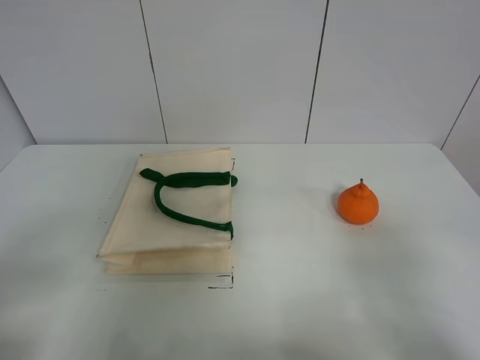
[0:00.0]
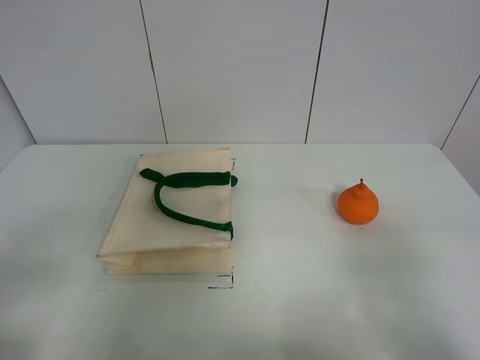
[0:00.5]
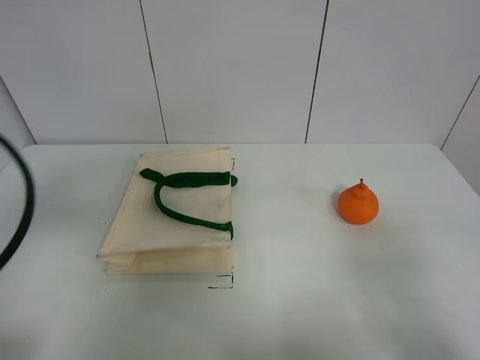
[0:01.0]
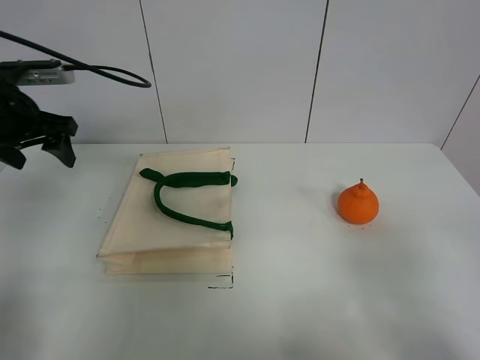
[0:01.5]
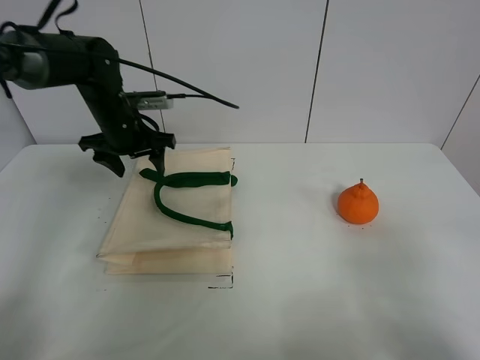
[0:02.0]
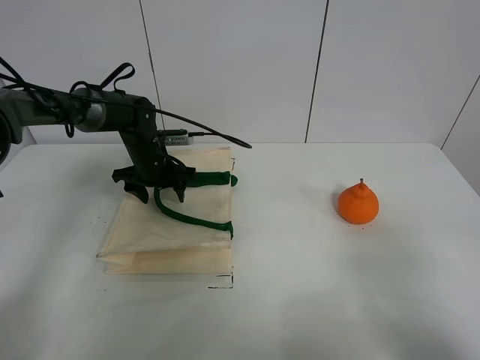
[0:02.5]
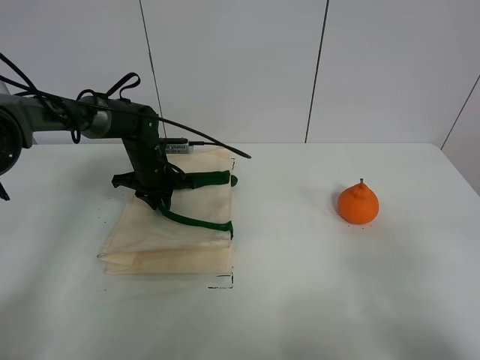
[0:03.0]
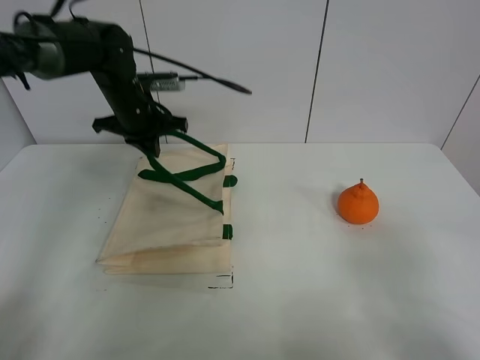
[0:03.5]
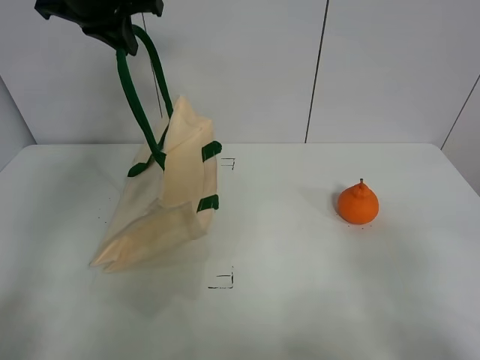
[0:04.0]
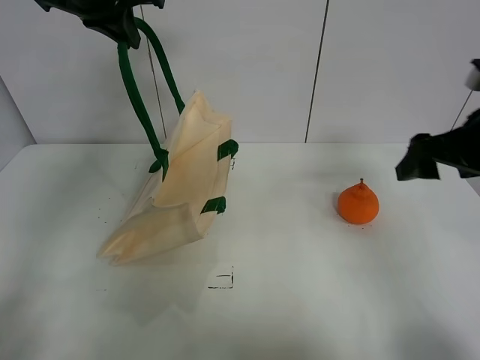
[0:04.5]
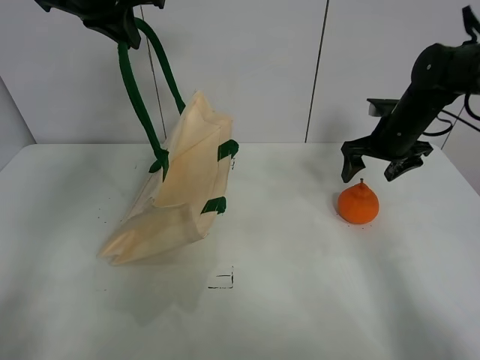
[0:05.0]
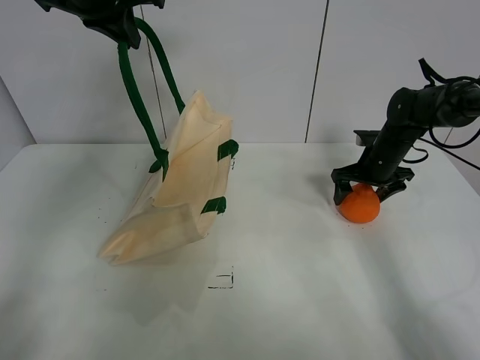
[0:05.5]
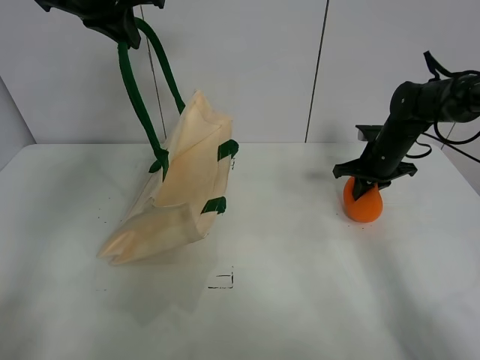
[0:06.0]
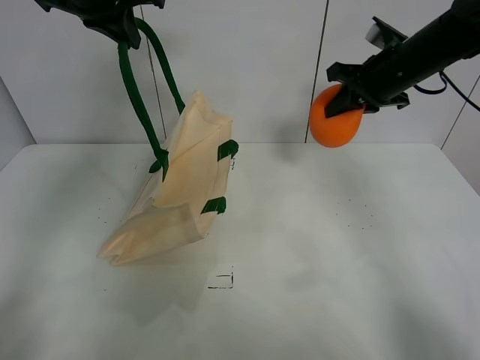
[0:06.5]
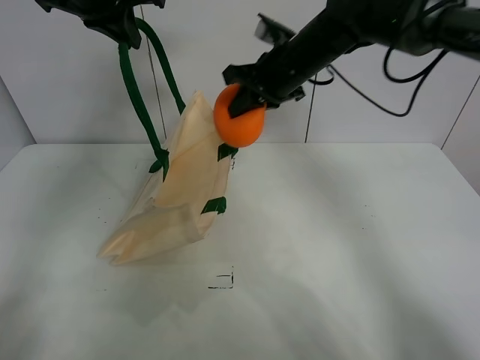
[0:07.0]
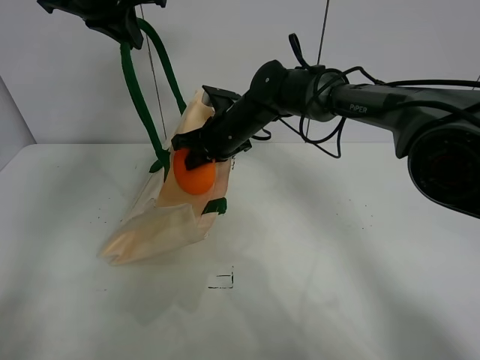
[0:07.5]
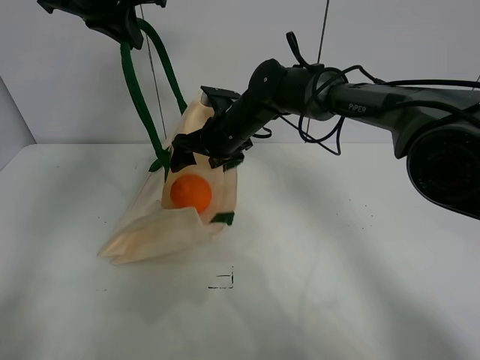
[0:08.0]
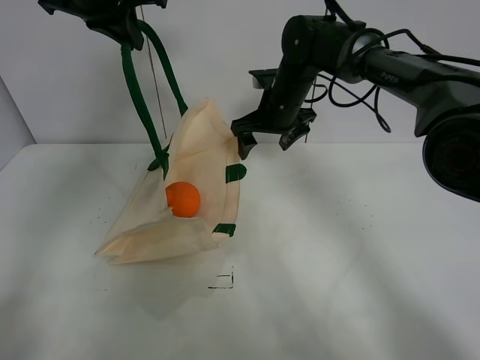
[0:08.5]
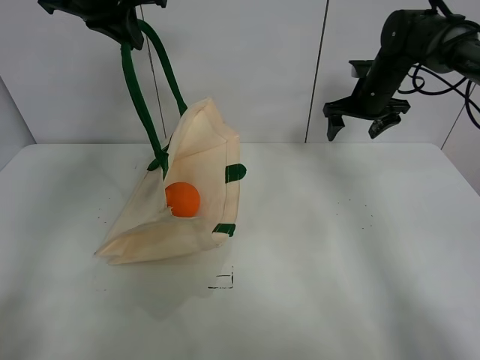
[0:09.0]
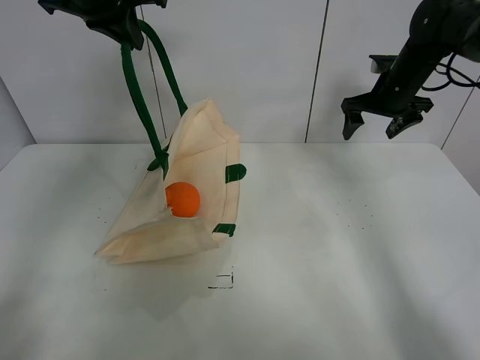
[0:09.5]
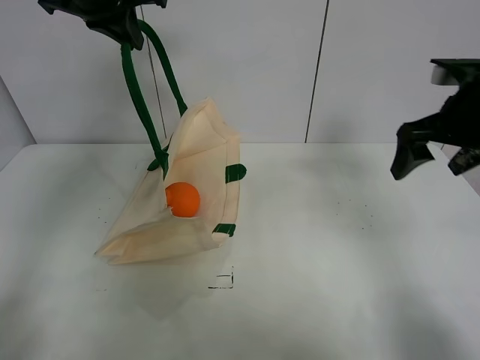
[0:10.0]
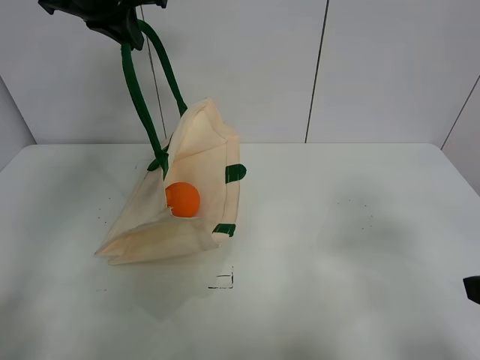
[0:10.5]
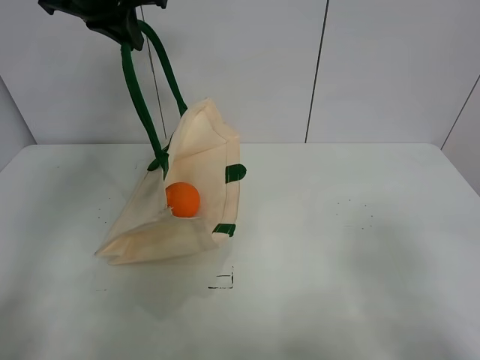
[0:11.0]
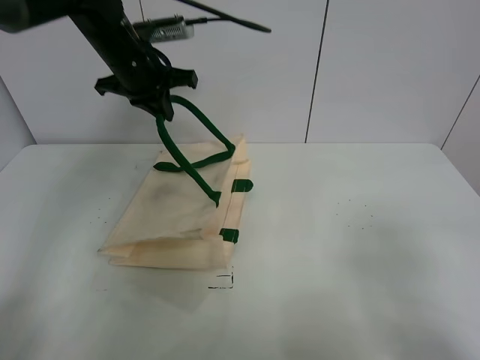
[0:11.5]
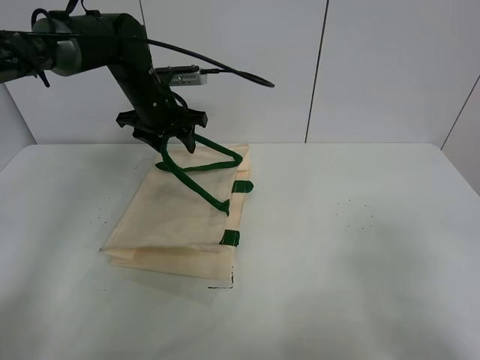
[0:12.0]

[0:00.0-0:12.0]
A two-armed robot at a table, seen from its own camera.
Task of the whole recording: open the white linen bag and put the orange in the bag.
Step, 0:00.0 to 0:03.5: Lift the handbag with left gripper.
Step, 0:04.0 to 0:05.5: Grasp the orange with right gripper.
Step, 0:06.0 to 0:08.0: Place the orange in the handbag with right gripper.
0:00.0 to 0:02.0: The left gripper goes roughly 40 cm forward.
0:02.0 to 0:04.0: The left gripper moves upward, approximately 20 cm, and closes up.
0:04.0 to 0:06.0: The right gripper heads forward, covering some 40 cm, and closes its fingers.
0:06.0 to 0:08.0: The right gripper is displaced to the left by about 25 cm, and opens up.
0:08.0 to 0:10.0: The right gripper heads to the right, backward and upward, covering roughly 35 cm.
0:10.0 to 0:12.0: The right gripper moves backward, approximately 30 cm; the left gripper goes about 20 cm downward, and opens its fingers.

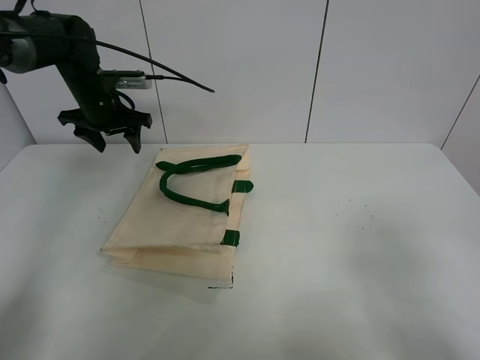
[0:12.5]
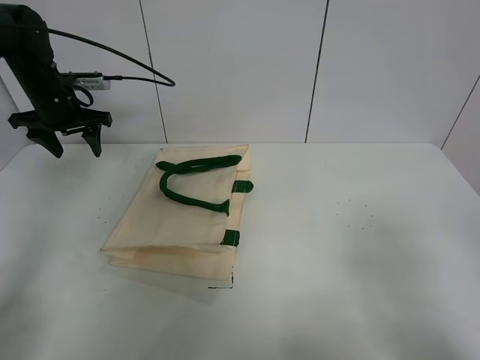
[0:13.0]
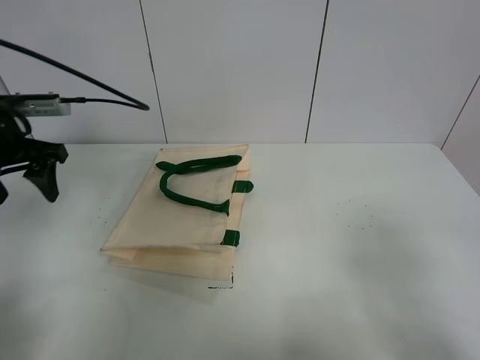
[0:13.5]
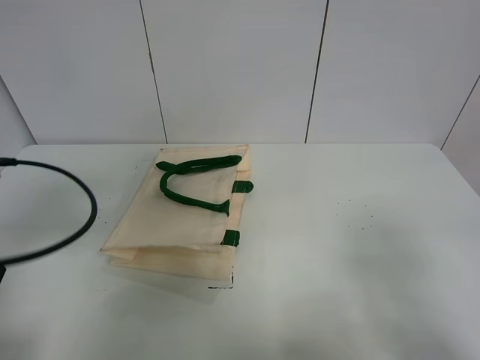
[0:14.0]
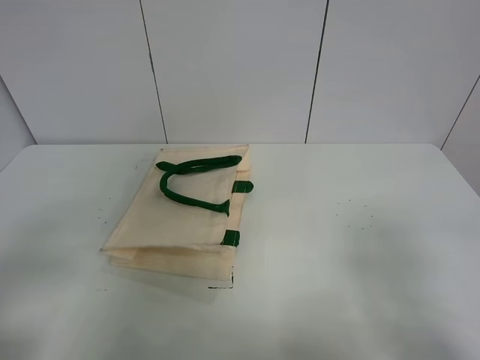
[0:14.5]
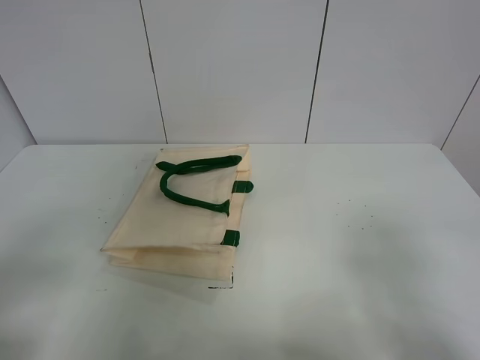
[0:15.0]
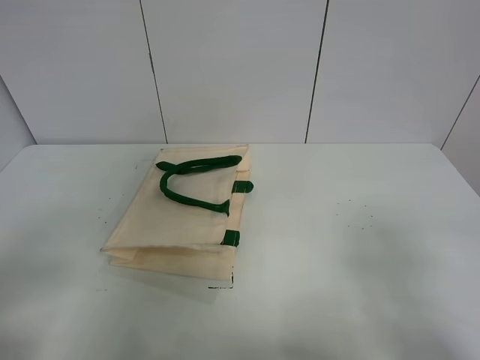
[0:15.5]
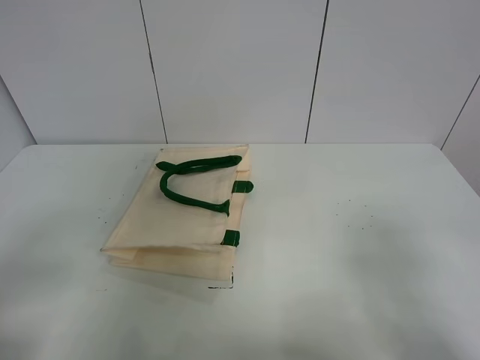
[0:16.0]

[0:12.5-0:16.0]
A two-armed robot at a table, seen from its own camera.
Task of the whole recording: open the white linen bag and put the orange in the bag.
0:12.5 to 0:14.5: The left gripper shifts roughly 50 cm backward.

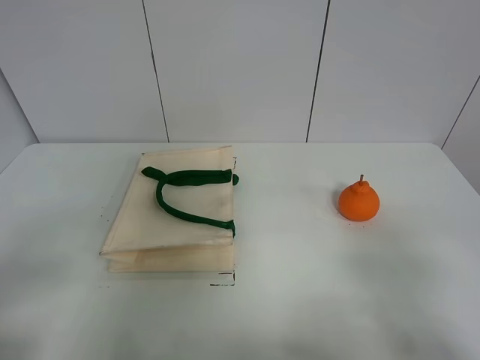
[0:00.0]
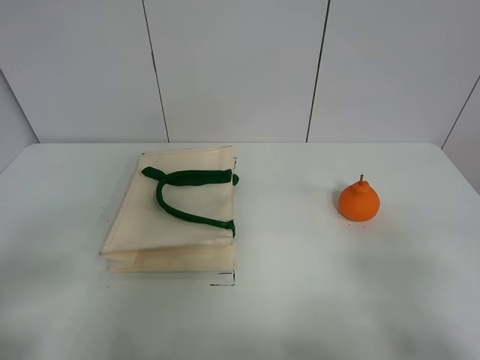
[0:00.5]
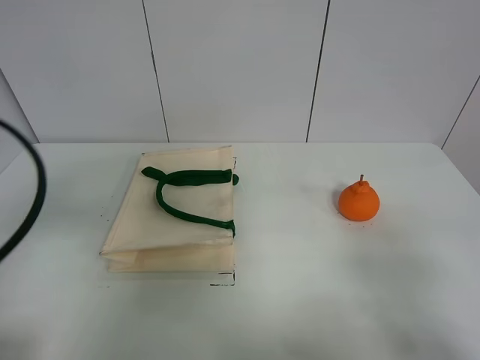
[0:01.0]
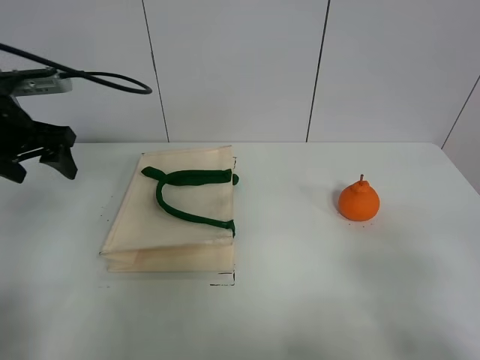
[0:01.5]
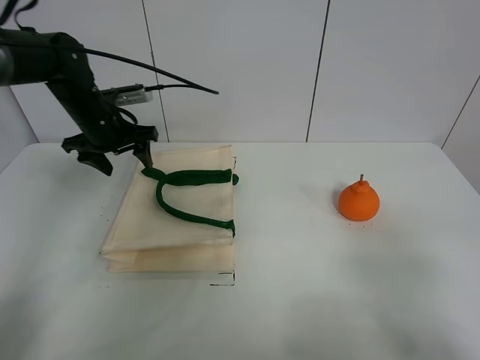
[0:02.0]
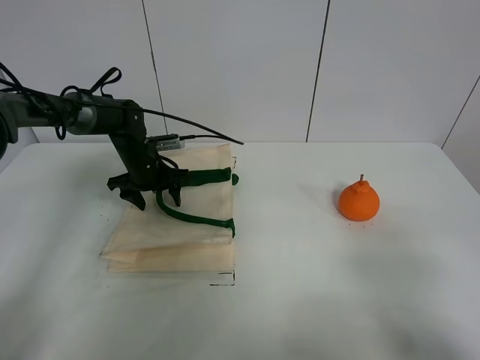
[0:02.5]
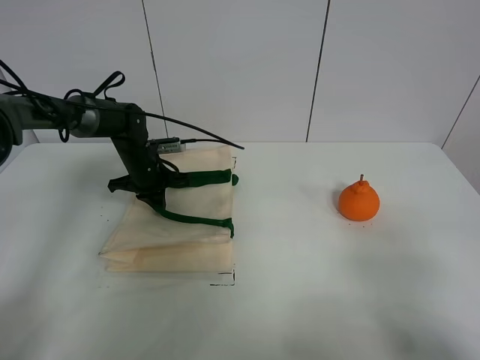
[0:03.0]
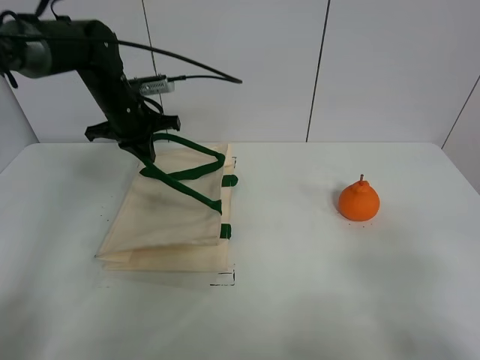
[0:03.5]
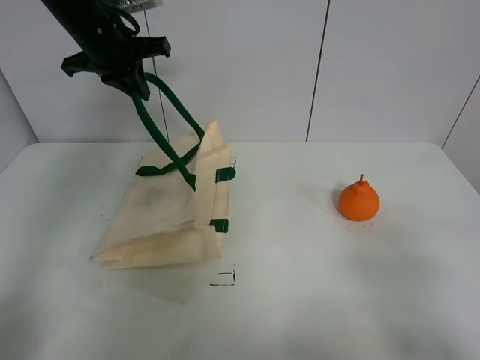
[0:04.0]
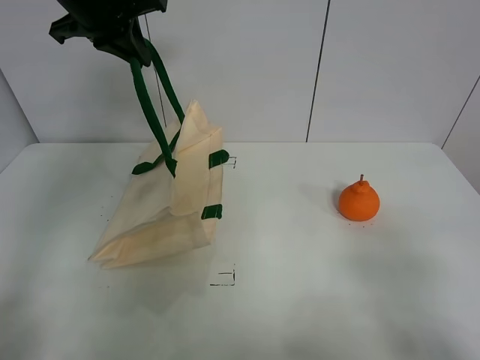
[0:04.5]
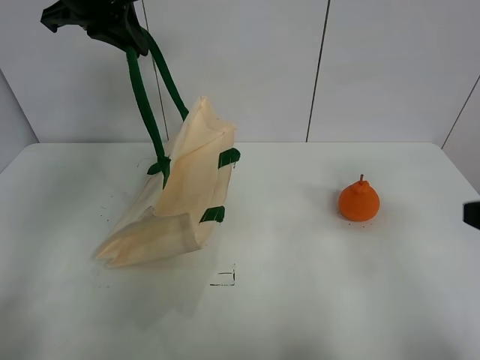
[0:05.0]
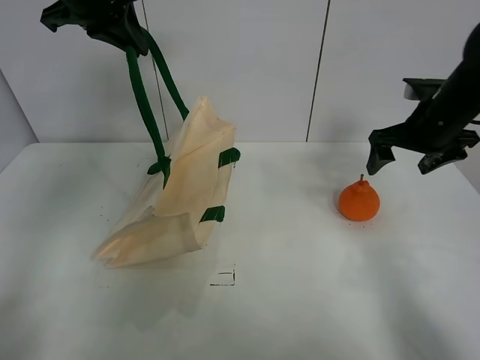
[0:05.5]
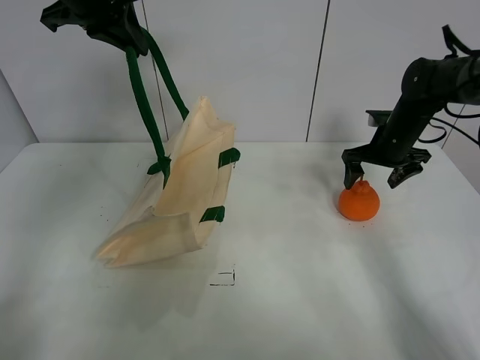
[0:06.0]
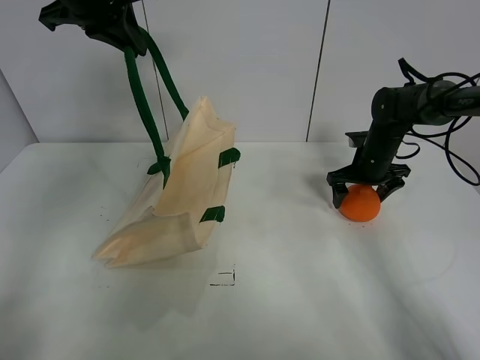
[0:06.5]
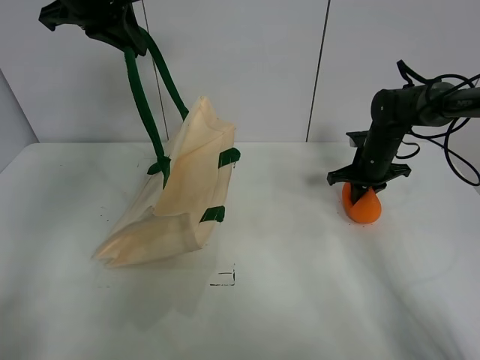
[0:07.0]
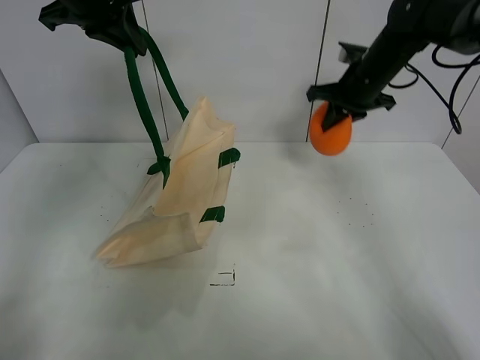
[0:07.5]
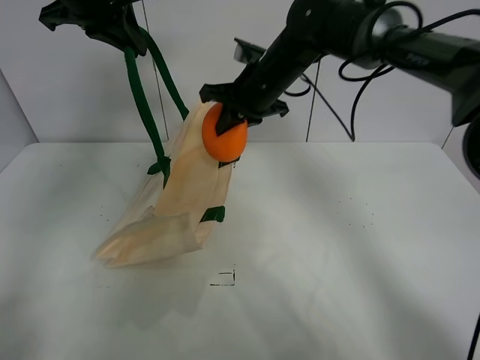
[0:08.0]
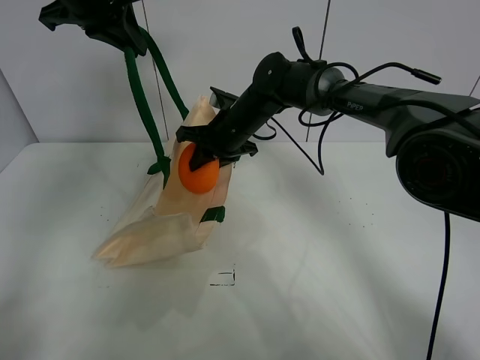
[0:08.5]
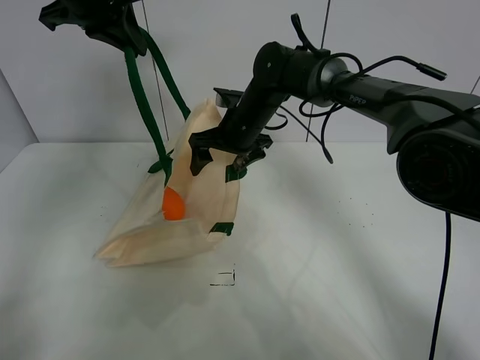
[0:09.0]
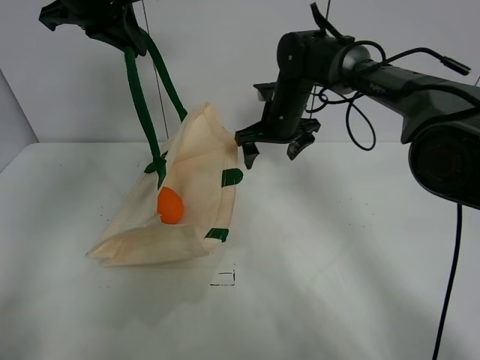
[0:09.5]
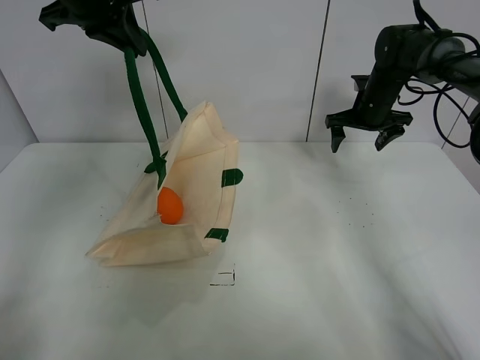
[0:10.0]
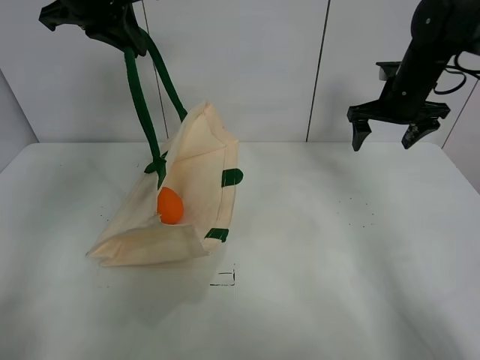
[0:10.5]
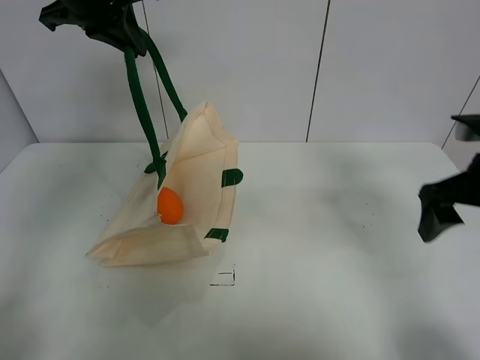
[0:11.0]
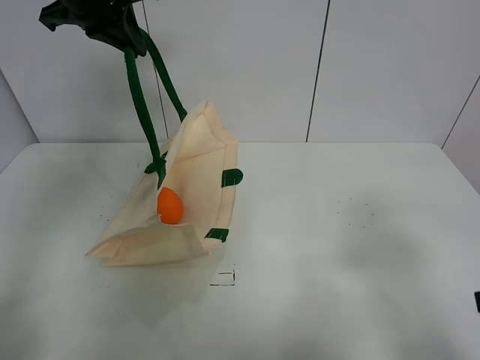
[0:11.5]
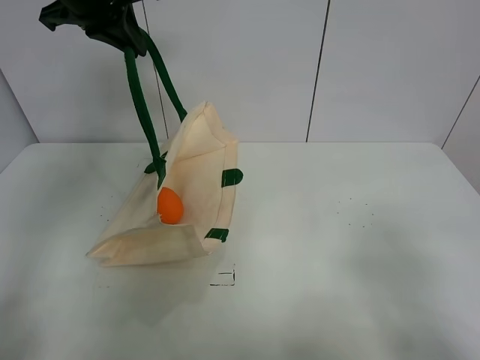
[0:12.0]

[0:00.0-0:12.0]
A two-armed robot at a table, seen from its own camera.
Task of the whole recording: open the white linen bag and put the orange in the bag.
Step, 0:00.0 to 0:04.5: Lift the handbag with left gripper.
Step, 0:05.0 to 0:07.0: Grasp the orange with right gripper.
Step, 0:07.5 to 0:08.5: Place the orange in the handbag with right gripper.
0:00.0 to 0:02.0: The left gripper shifts approximately 40 cm forward.
0:02.0 to 0:04.0: The left gripper travels upward by roughly 15 cm, and closes.
0:04.0 to 0:06.0: The left gripper goes some 5 cm upward. The right gripper goes some 40 cm forward.
0:06.0 to 0:08.0: The right gripper heads to the left and upward, covering about 25 cm, and closes.
0:08.0 to 0:10.0: The right gripper heads to the right, covering roughly 20 cm, and opens up.
0:10.0 to 0:12.0: The right gripper moves backward, roughly 50 cm.
